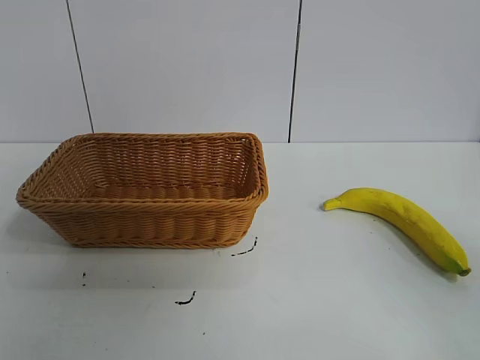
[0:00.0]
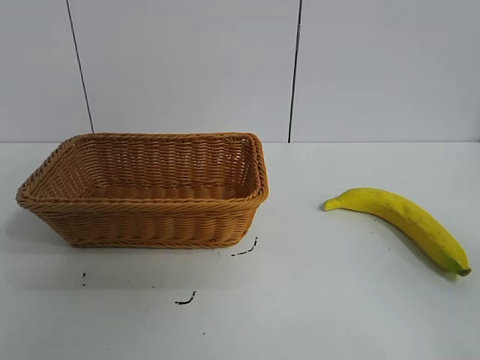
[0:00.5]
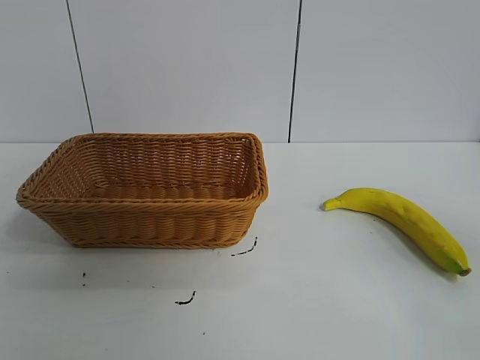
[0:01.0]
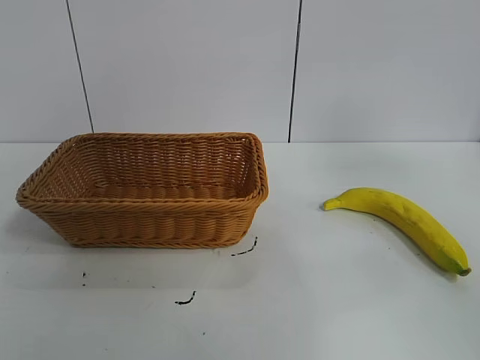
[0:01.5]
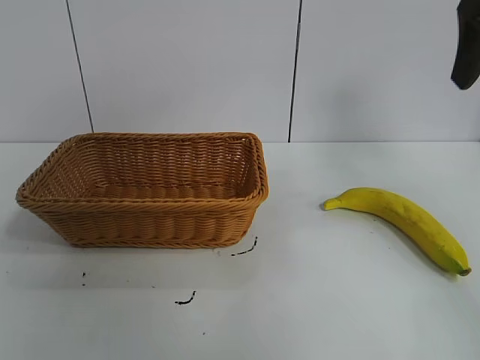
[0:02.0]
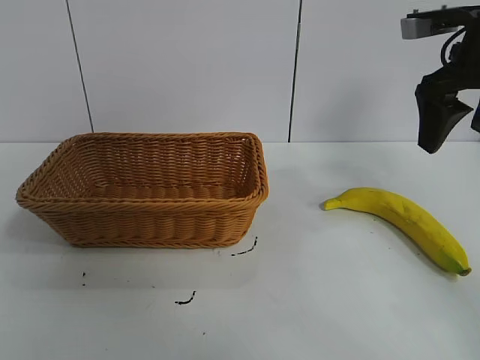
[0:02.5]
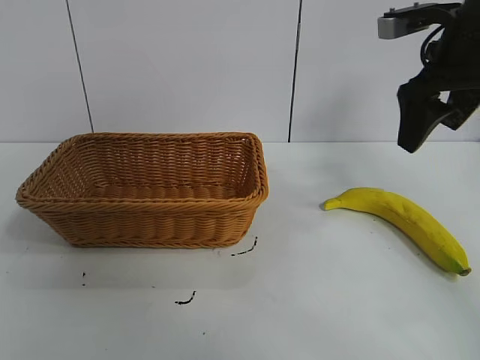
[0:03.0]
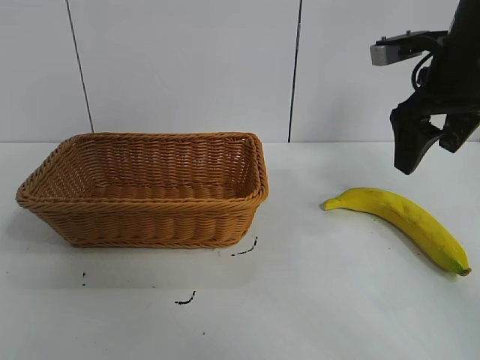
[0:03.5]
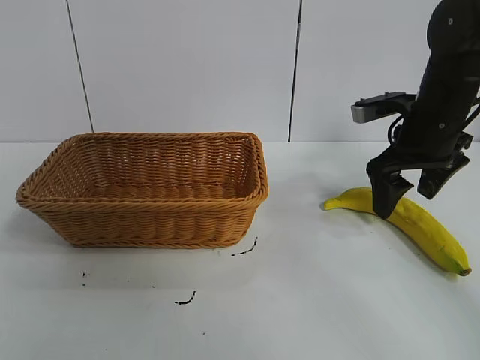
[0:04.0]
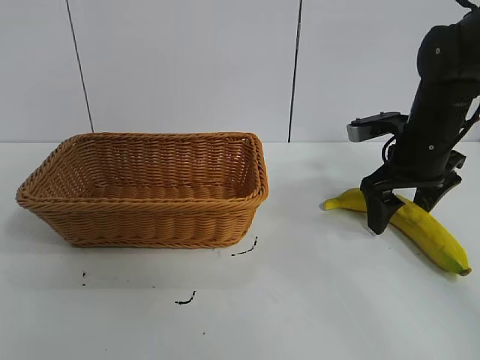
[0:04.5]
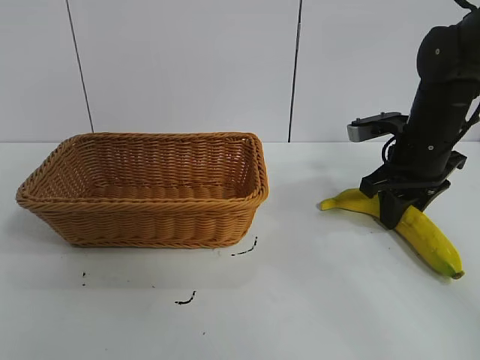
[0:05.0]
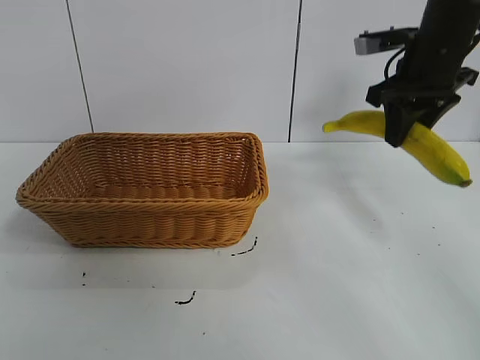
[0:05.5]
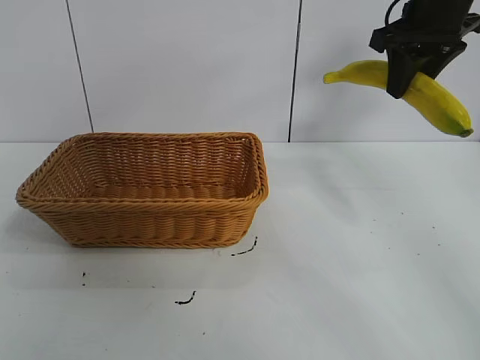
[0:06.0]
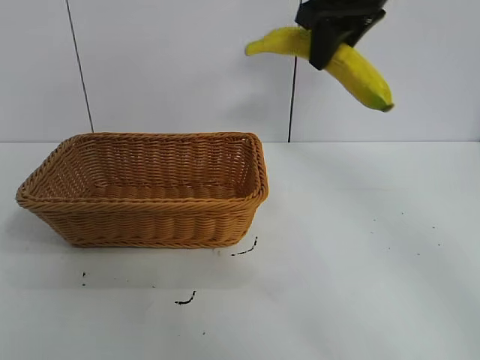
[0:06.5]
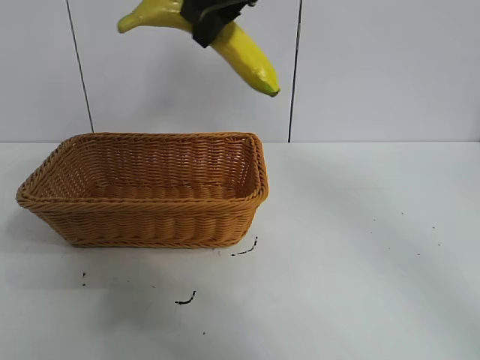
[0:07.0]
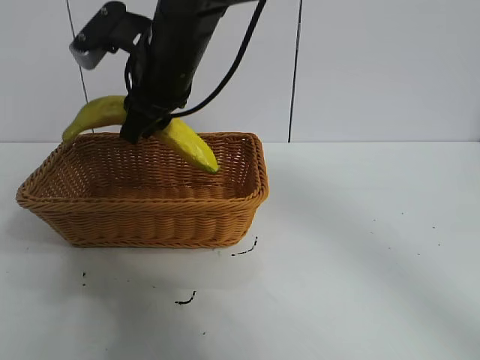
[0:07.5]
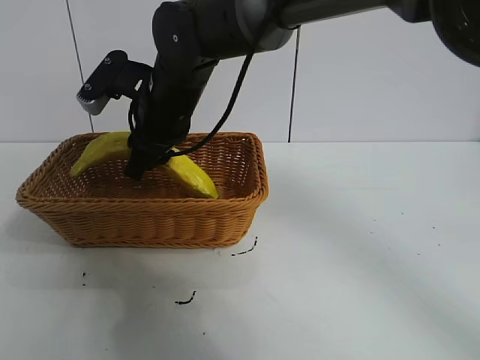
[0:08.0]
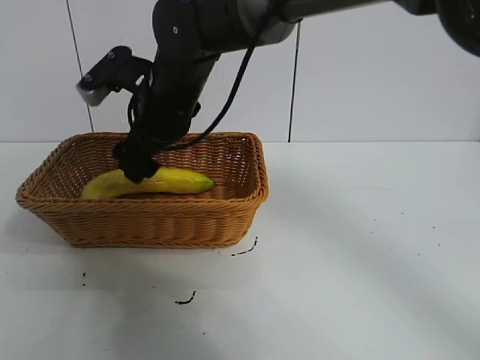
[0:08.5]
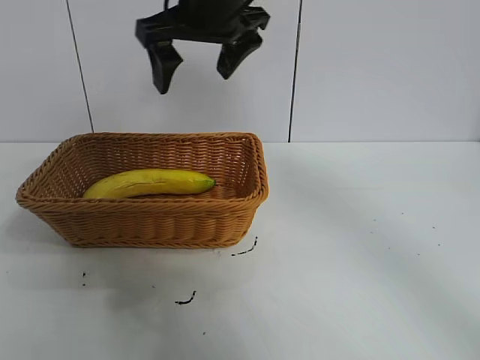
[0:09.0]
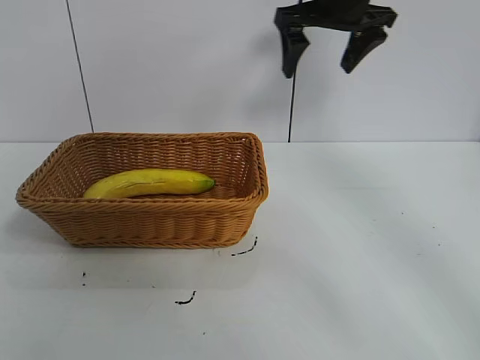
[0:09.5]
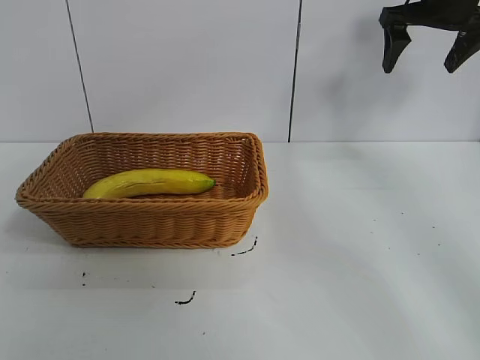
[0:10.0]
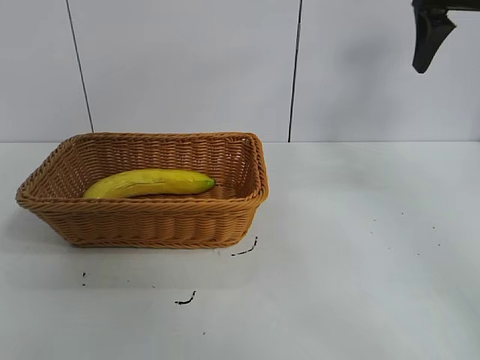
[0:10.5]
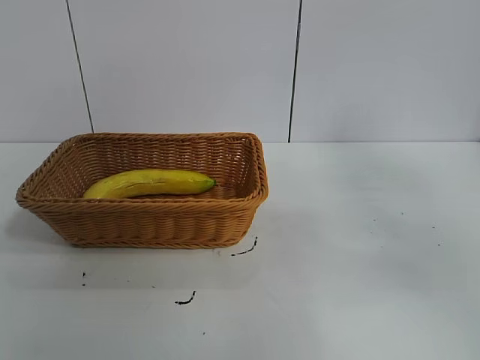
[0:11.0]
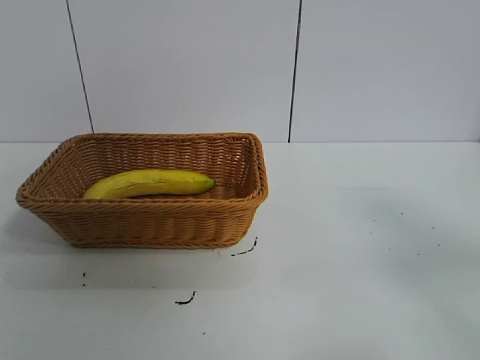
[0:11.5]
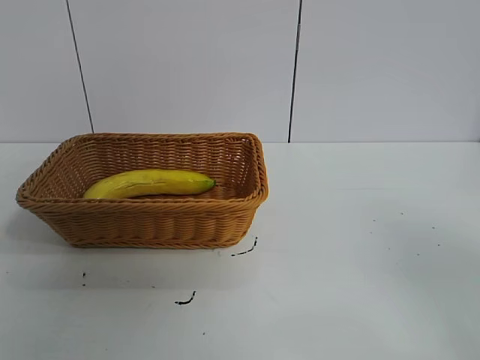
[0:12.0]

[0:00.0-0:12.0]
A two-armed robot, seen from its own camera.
Task of the whole recording: pick up the banana and put it into the basket.
Step, 0:01.0 to 0:05.0: Grasp the banana with right gripper.
Step, 0:05.5 to 0:08.0: Place the banana in the basket with right gripper.
